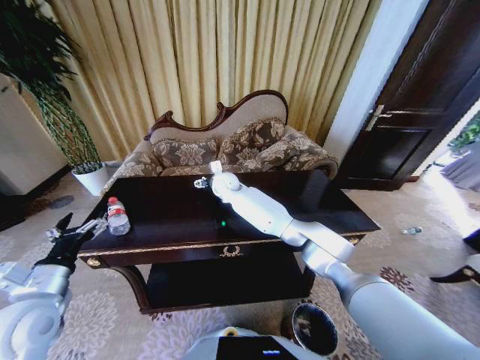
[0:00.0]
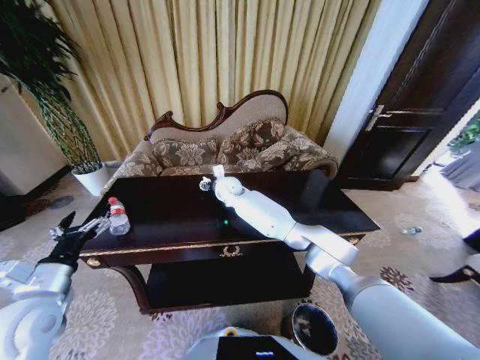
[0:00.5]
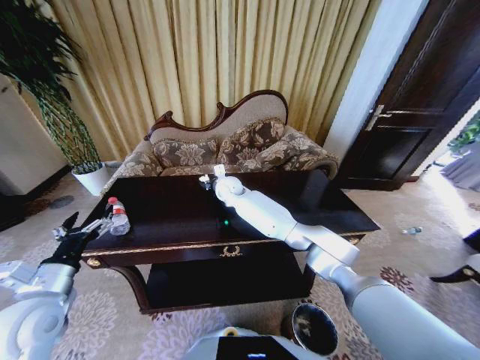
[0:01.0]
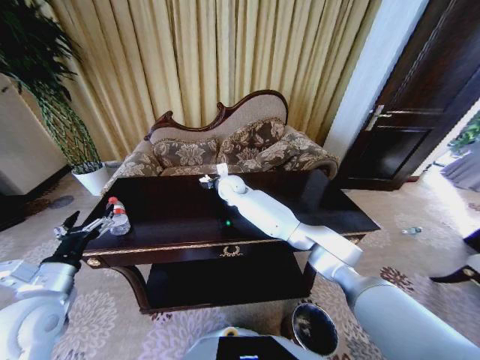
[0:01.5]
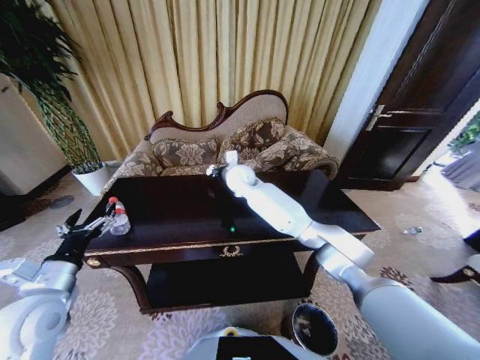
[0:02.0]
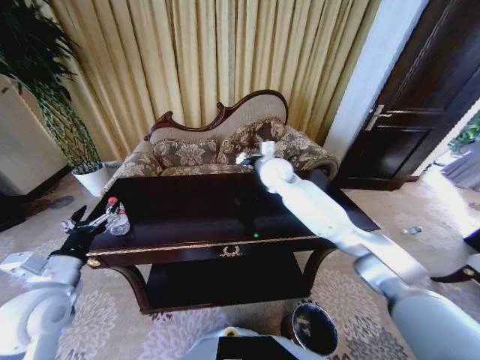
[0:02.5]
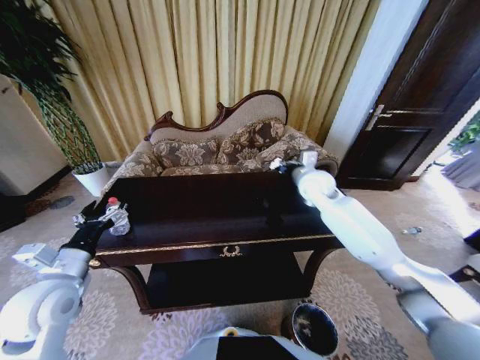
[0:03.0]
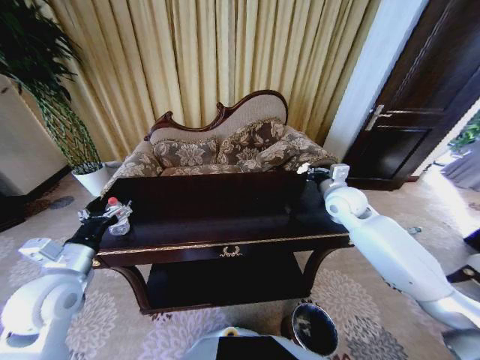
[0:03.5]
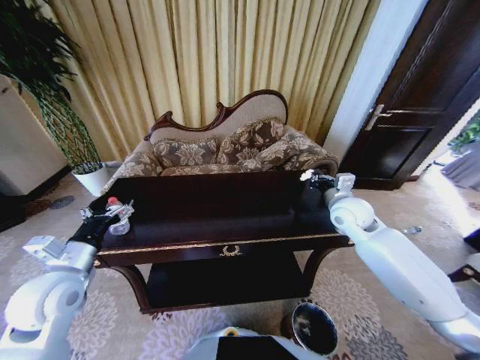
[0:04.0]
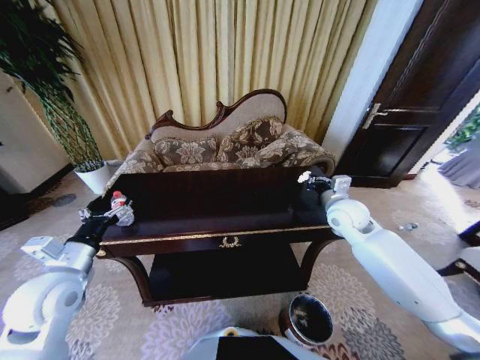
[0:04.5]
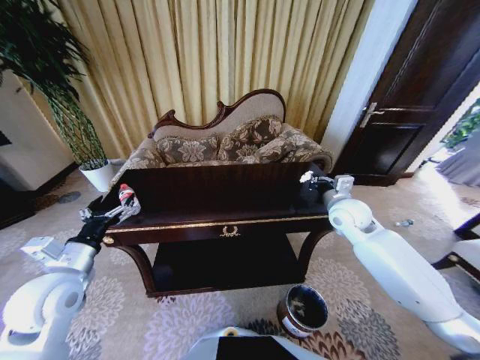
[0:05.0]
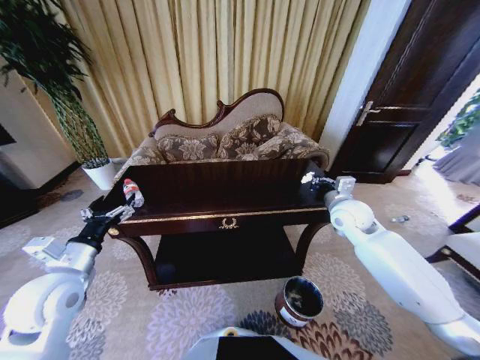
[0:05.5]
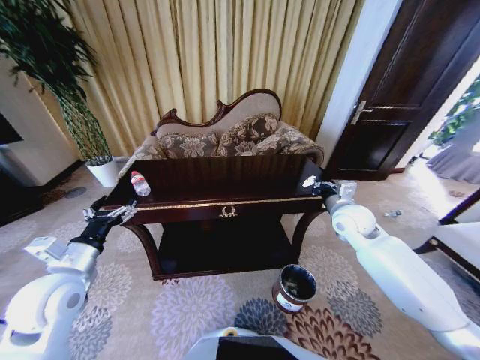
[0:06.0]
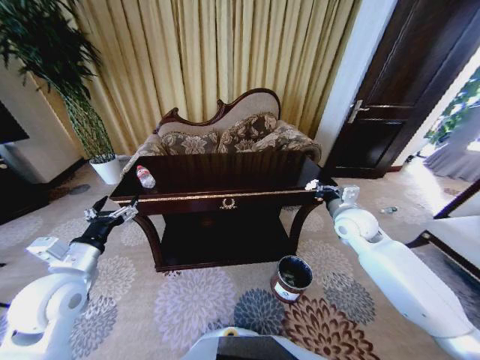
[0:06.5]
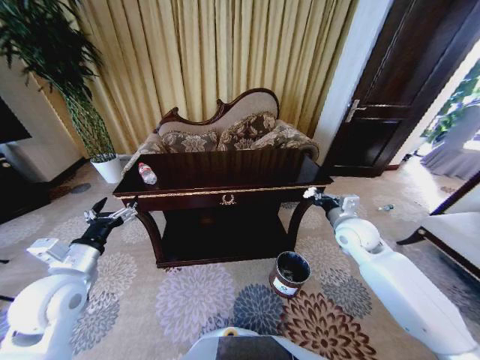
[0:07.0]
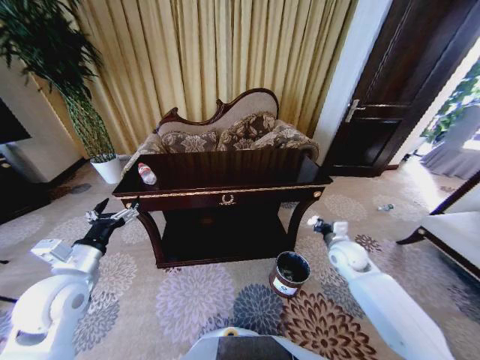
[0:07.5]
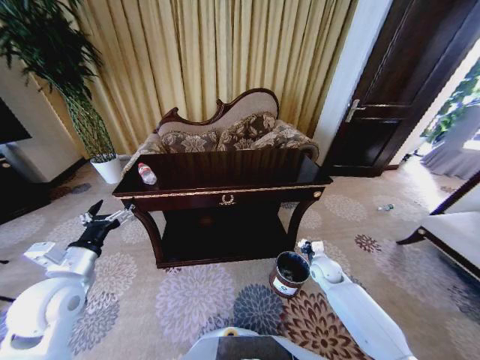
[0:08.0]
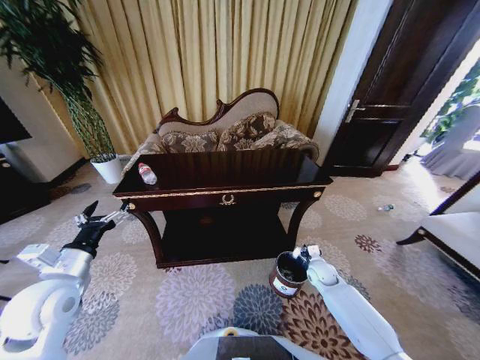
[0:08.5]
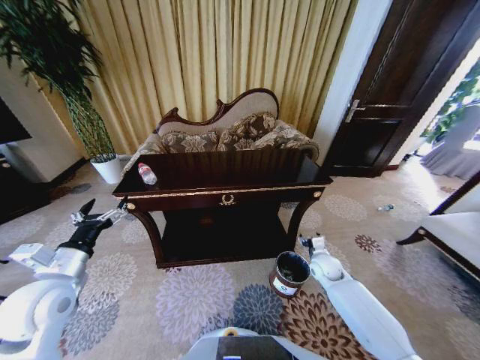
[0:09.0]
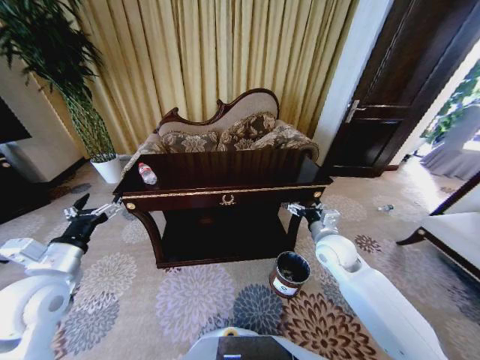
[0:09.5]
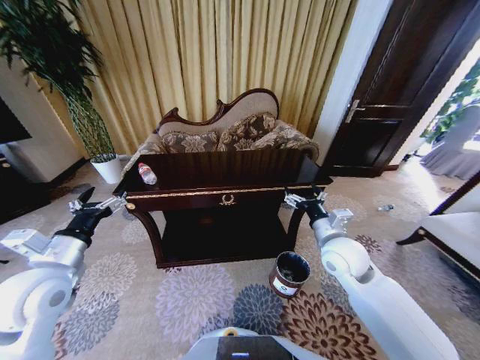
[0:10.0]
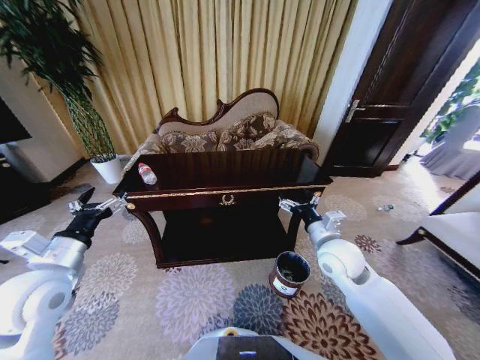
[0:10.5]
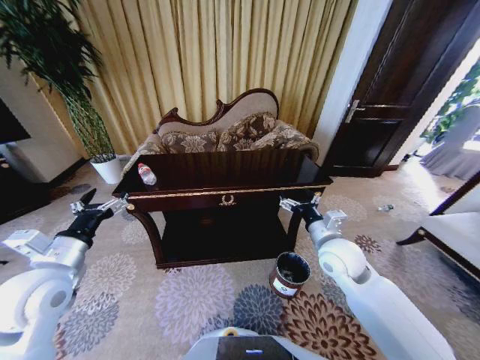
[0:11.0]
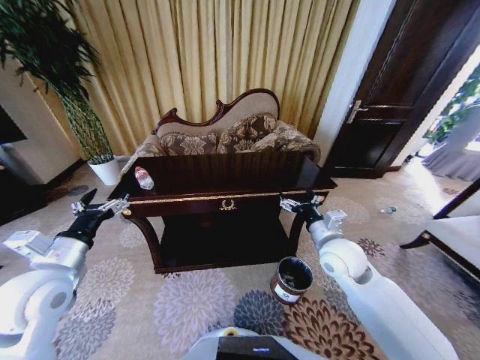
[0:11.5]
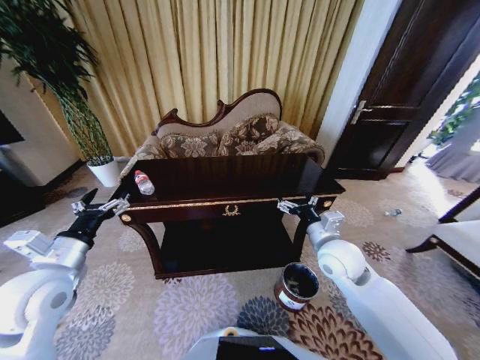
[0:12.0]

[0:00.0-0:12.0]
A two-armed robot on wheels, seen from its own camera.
Task of the whole recording: Move to the front of the table and place the trash on the table into the trash bin.
0.0 to 2.0 s: The right gripper moves about 5 cm, and closes up.
2.0 to 4.0 s: The right gripper travels to the right and backward by about 35 cm.
6.0 to 8.0 s: The right gripper travels downward by approximately 25 cm.
8.0 to 10.0 s: The right gripper is displaced upward by roughly 25 cm, and opens.

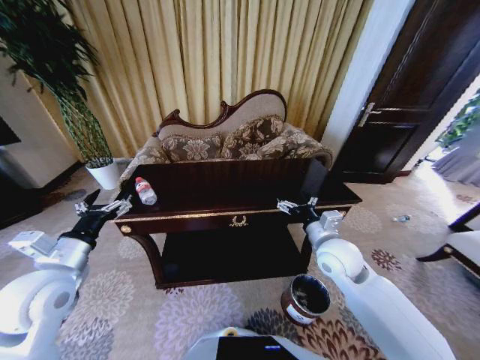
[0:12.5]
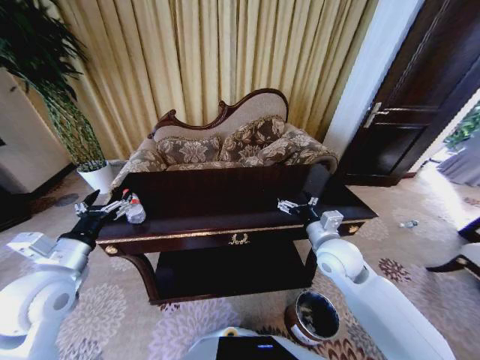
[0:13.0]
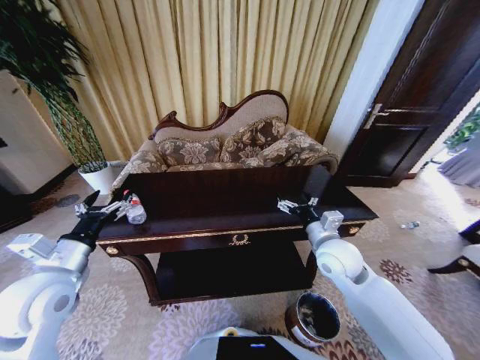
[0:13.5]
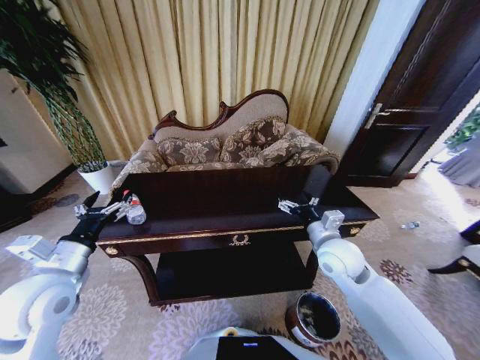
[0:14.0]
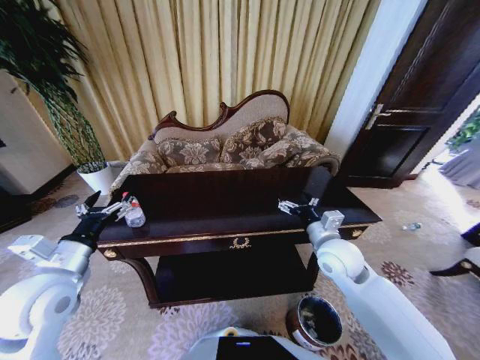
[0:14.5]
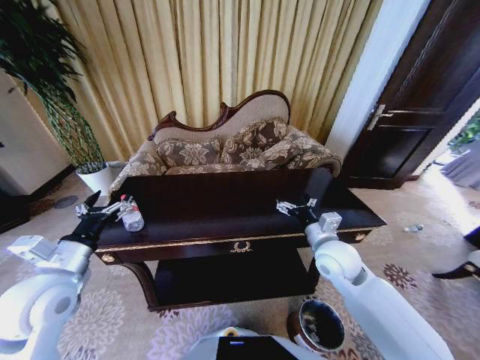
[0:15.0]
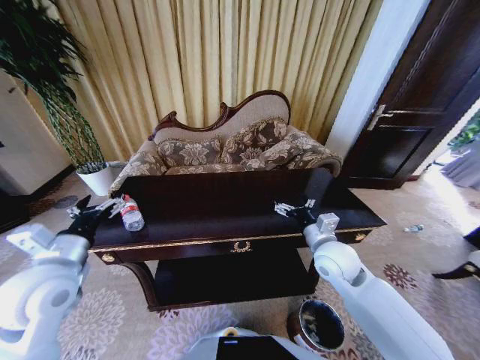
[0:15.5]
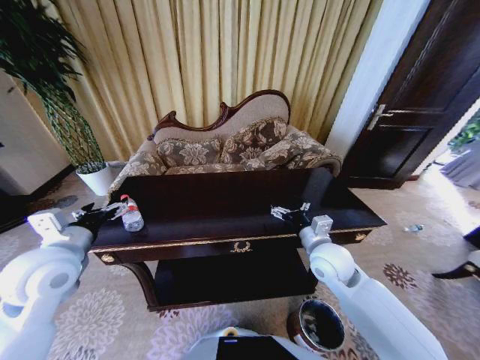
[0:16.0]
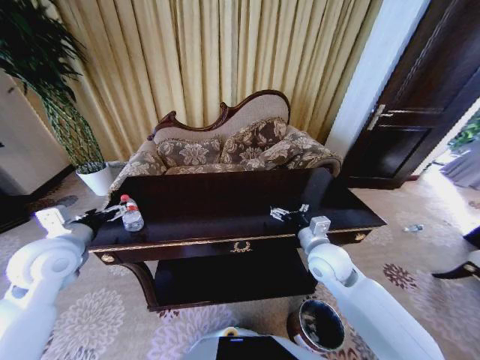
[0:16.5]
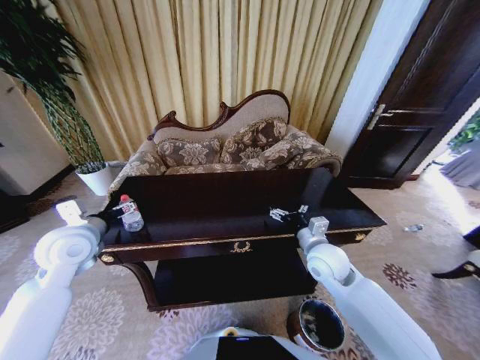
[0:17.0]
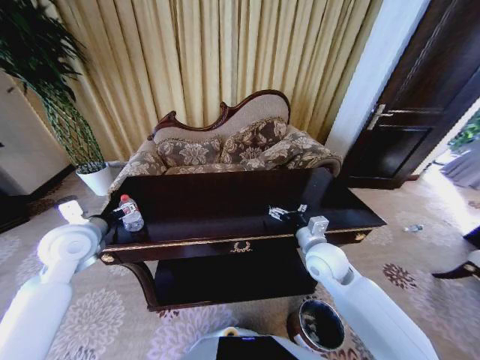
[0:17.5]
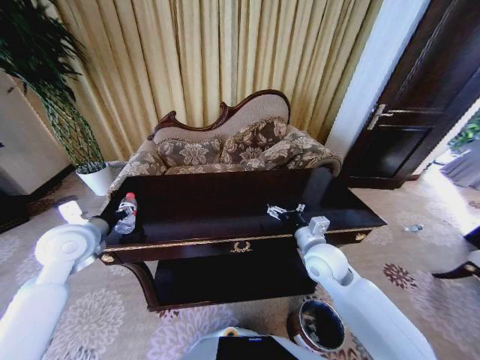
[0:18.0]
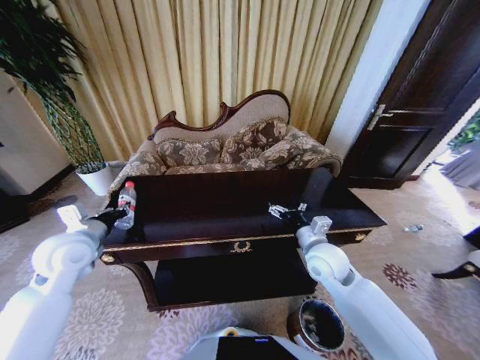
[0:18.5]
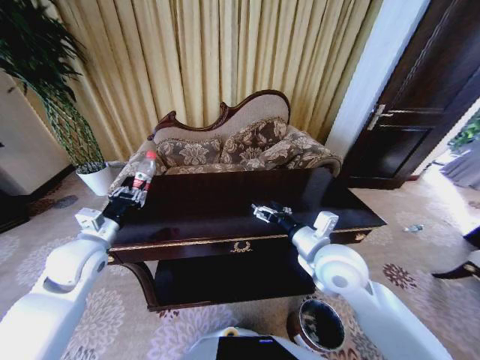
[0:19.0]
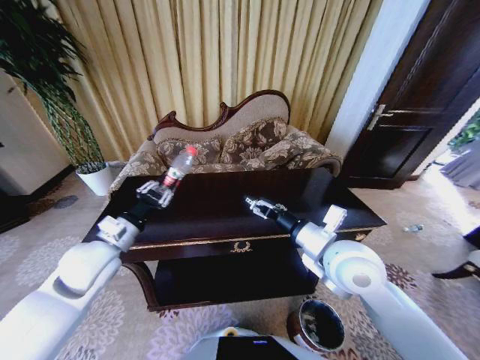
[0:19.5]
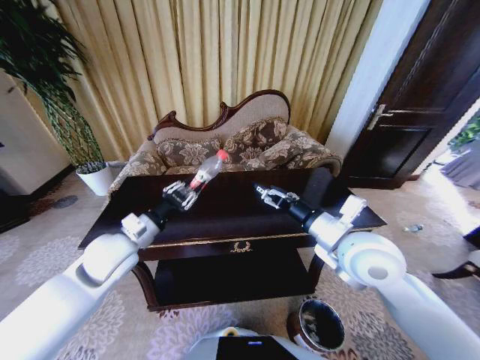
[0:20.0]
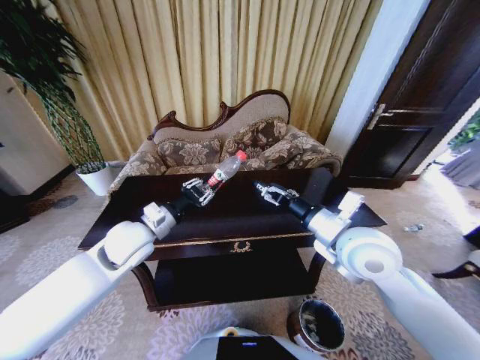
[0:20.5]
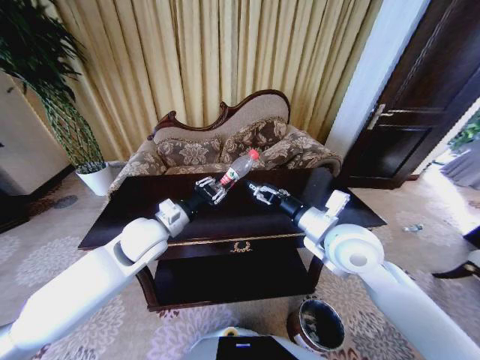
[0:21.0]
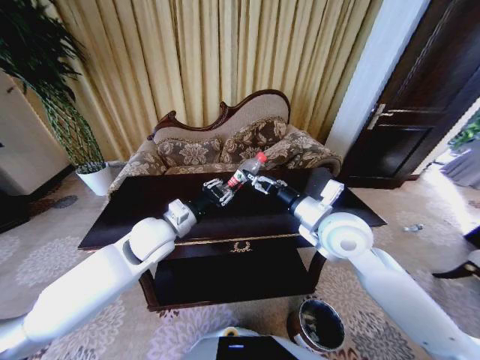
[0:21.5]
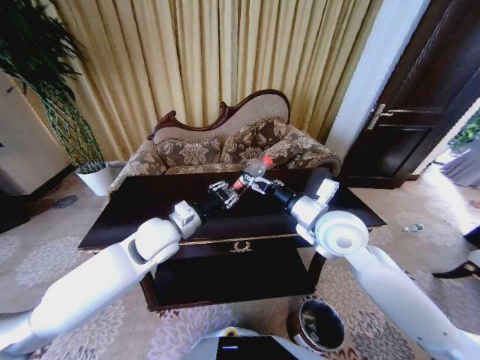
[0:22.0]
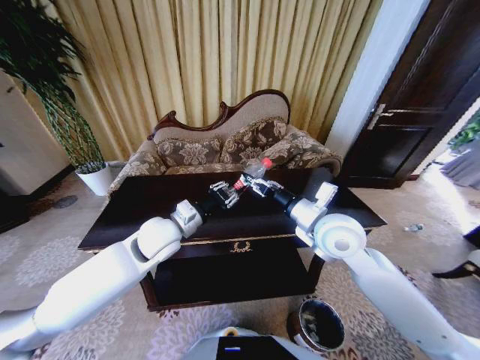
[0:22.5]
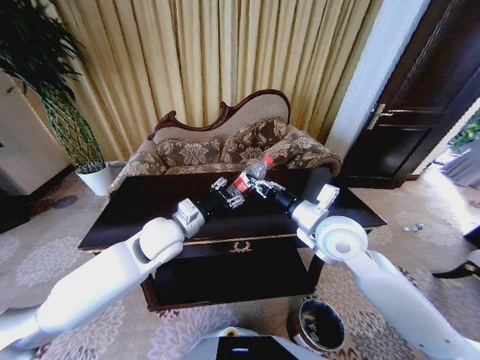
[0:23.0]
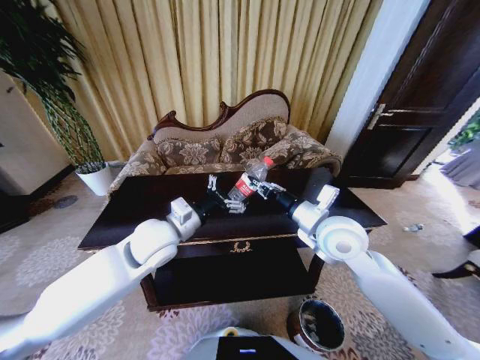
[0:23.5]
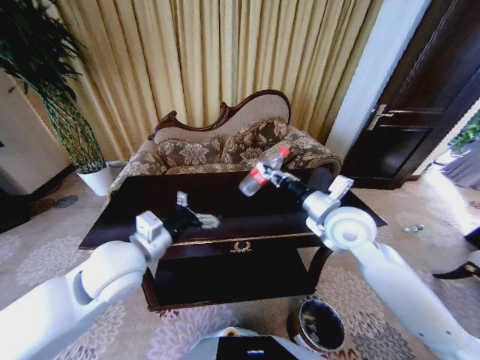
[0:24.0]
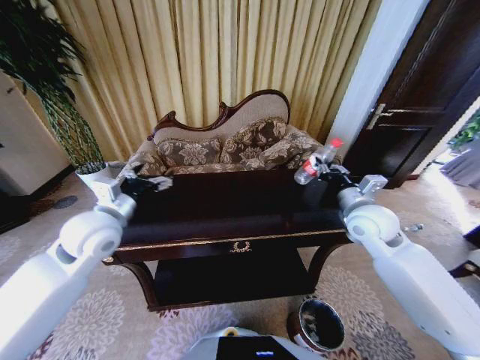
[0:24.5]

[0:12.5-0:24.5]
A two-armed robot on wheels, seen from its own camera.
Task of the whole recording: Move to the front of the table and place the trash on the table into the trash bin.
14.5 to 16.5 s: The left gripper heads forward, covering roughly 5 cm.
16.5 to 18.5 s: The left gripper closes up.
18.5 to 20.5 s: The left gripper heads to the right, covering approximately 15 cm; the right gripper is displaced upward by approximately 15 cm.
20.5 to 22.5 s: The right gripper moves approximately 5 cm, and closes its fingers, while the left gripper shifts approximately 5 cm to the right.
22.5 to 24.5 s: The left gripper shifts approximately 15 cm to the left and upward, and opens. The right gripper is displaced to the right by some 10 cm, and closes up.

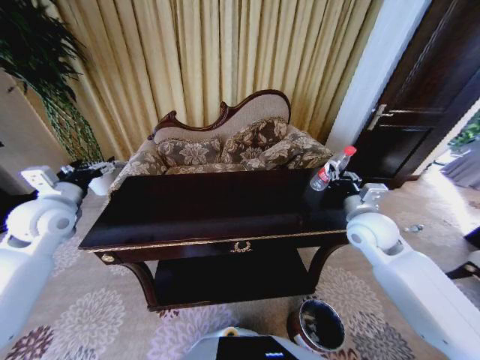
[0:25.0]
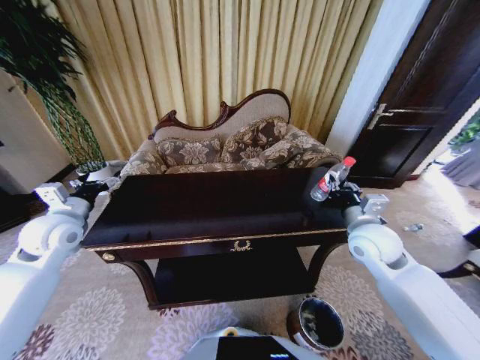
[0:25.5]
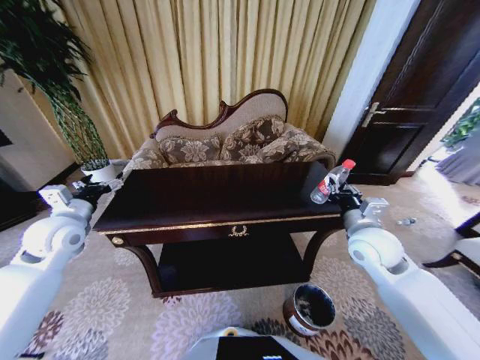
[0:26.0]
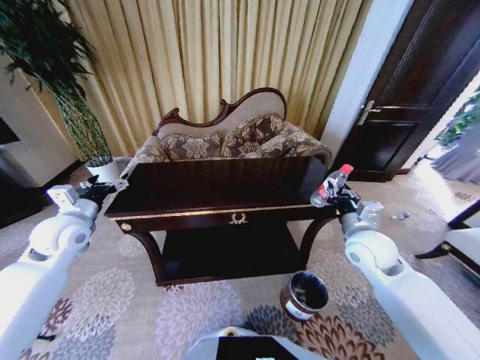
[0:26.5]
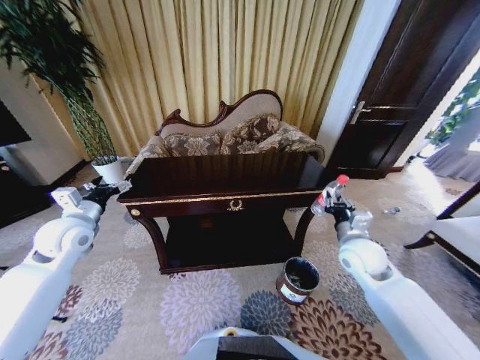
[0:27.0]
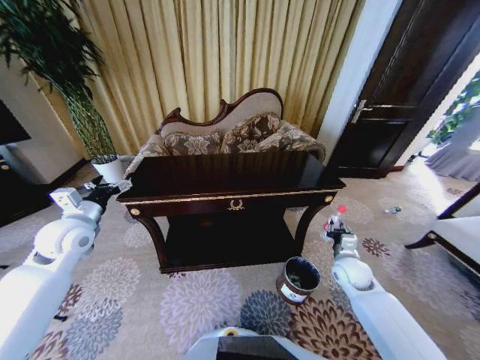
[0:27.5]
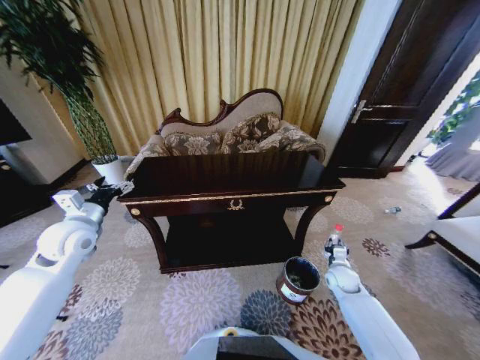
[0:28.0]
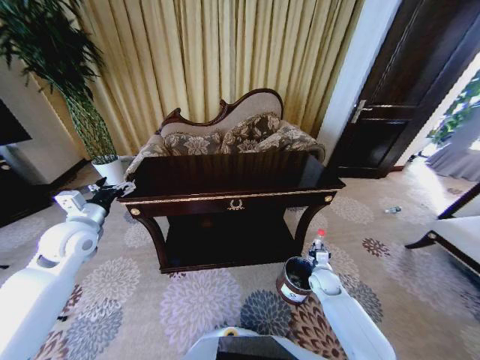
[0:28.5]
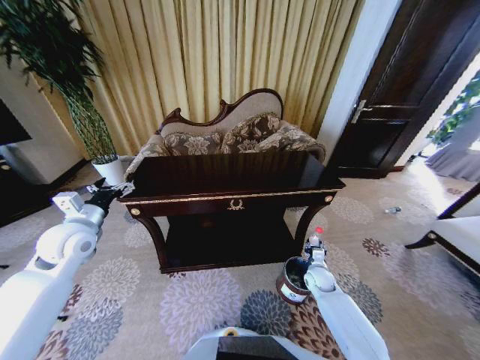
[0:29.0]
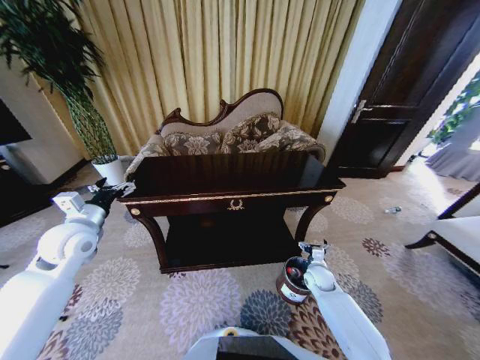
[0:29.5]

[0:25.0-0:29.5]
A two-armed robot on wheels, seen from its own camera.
Task of the whole recording: Move to the front of the table and place the trash on the table into the trash bin.
25.0 to 27.0 s: The grippers both shift downward by approximately 5 cm.
27.0 to 29.5 s: The right gripper shifts about 25 cm downward, and opens.
